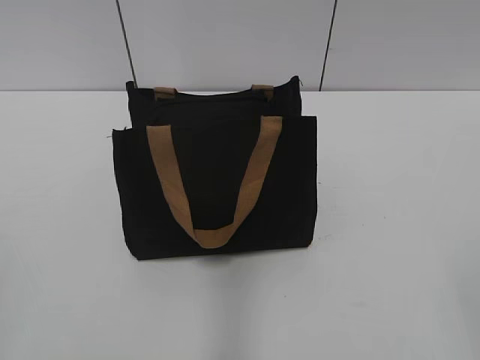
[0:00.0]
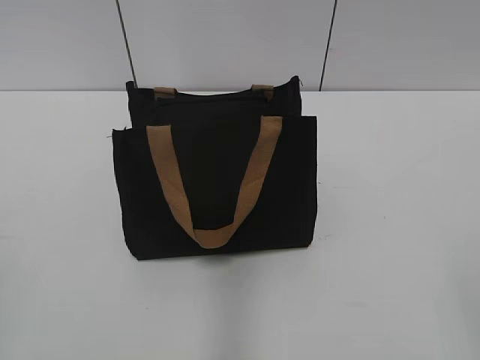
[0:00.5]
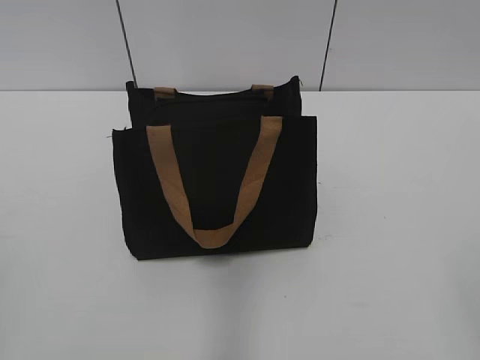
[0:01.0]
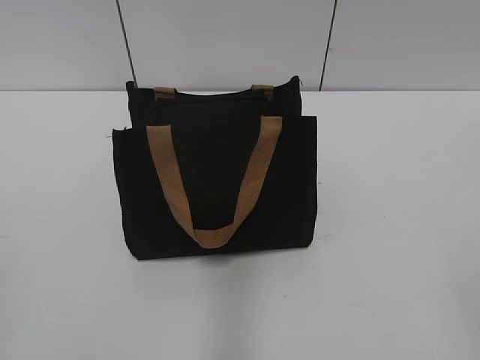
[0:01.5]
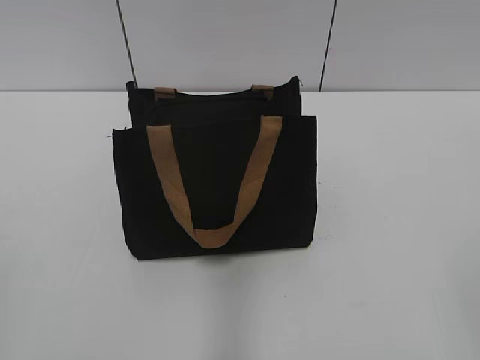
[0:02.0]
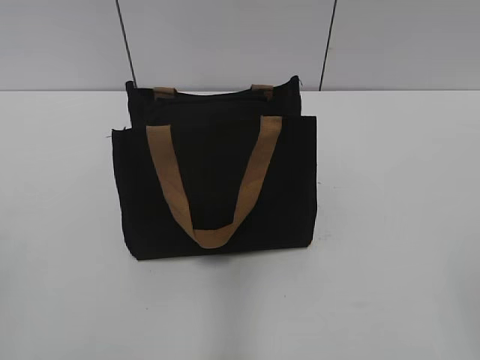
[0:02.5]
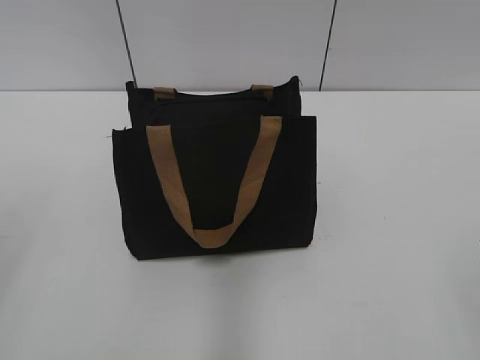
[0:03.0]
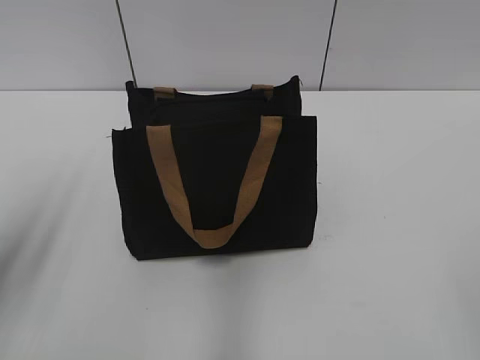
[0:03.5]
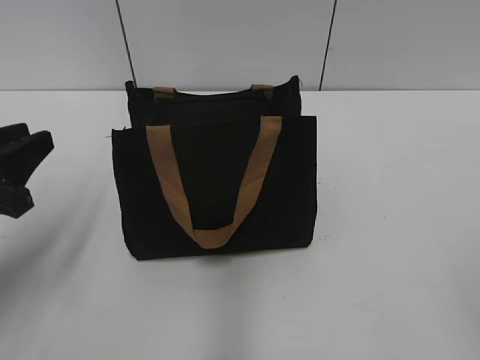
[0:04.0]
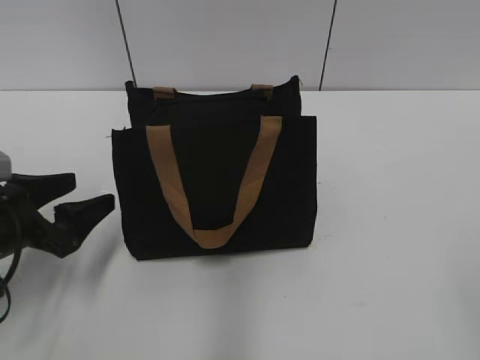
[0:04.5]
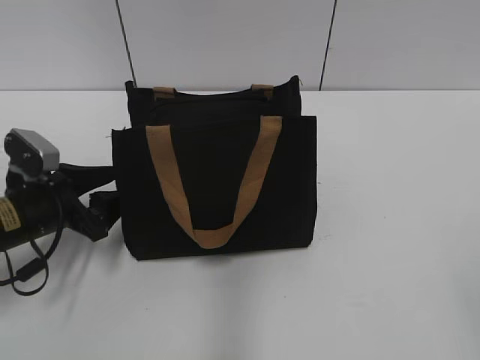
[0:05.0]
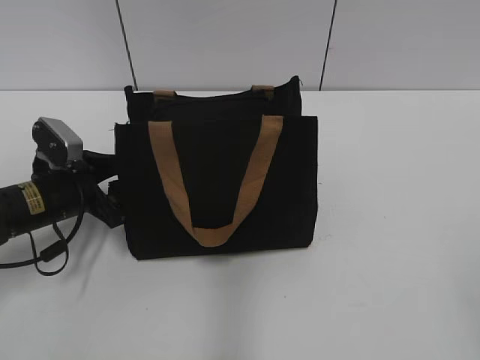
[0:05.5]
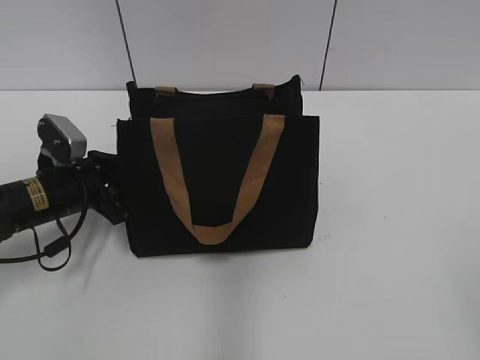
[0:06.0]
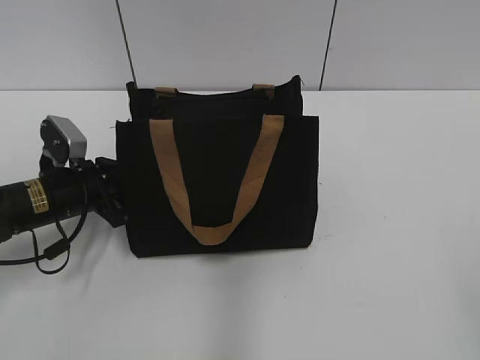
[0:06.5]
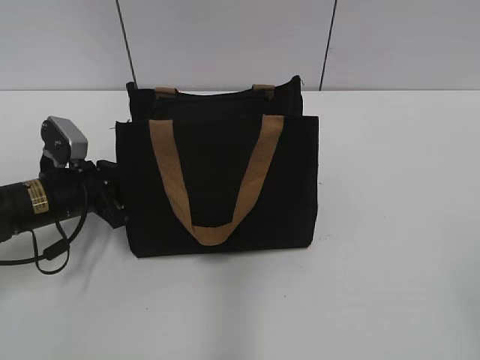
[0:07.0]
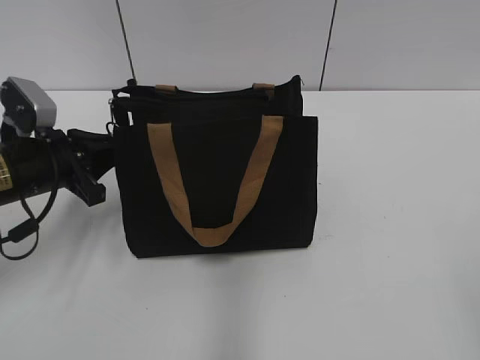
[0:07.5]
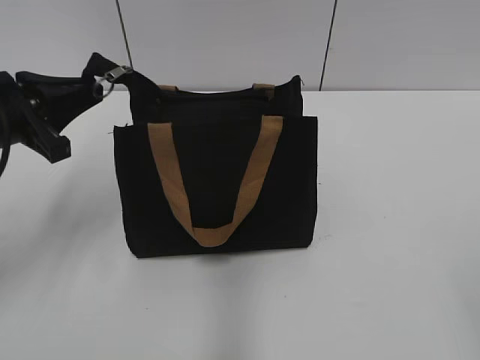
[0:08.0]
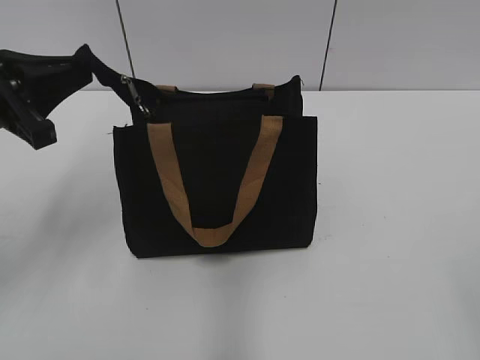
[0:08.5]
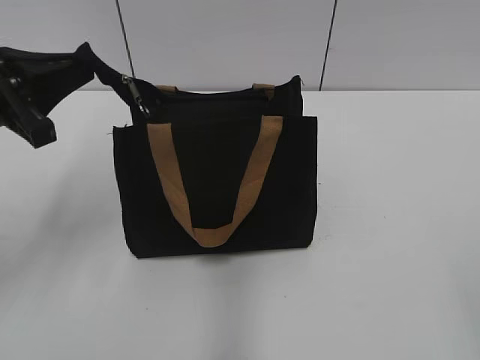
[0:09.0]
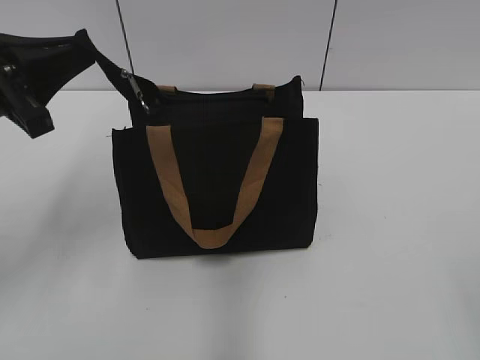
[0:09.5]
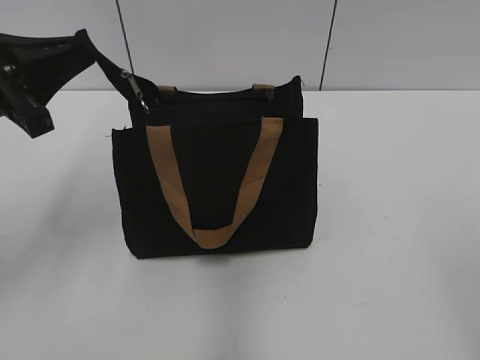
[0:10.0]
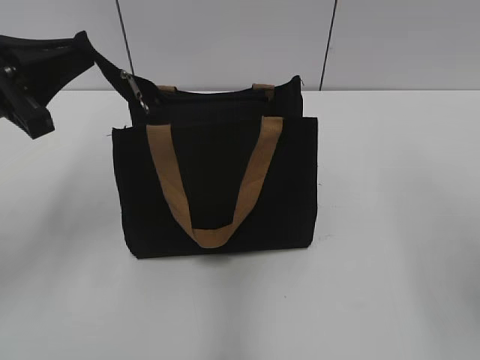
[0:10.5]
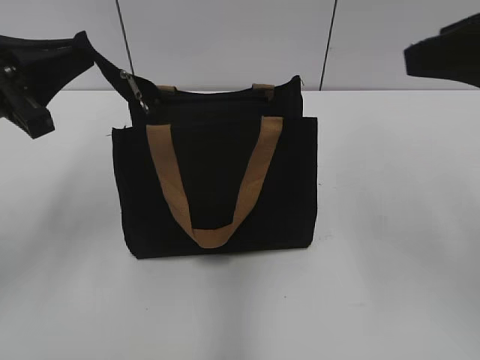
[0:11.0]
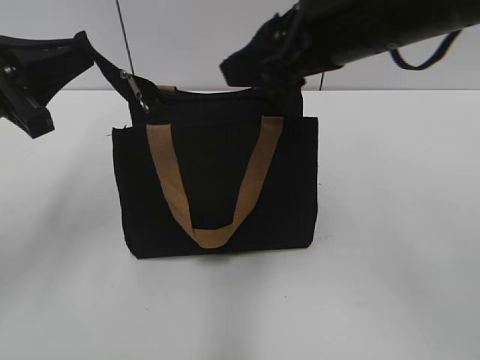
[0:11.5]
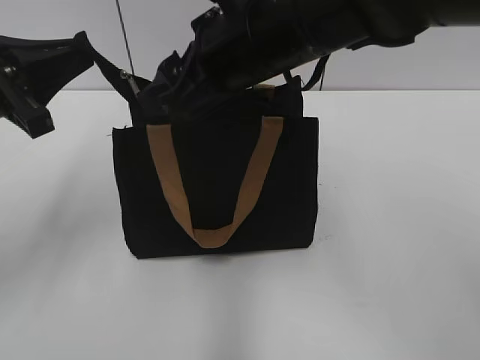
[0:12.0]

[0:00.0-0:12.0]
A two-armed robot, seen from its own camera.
0:02.0 to 0:04.0: The left gripper shifts about 20 cm forward and downward.
0:04.0 to 0:06.0: The left gripper is displaced forward and downward by about 15 cm.
0:06.0 to 0:08.0: The left gripper travels upward by some 15 cm, and closes its fingers.
0:08.0 to 0:10.0: The grippers move only a little.
0:10.0 to 0:12.0: The right gripper travels forward and to the left by some 40 cm.

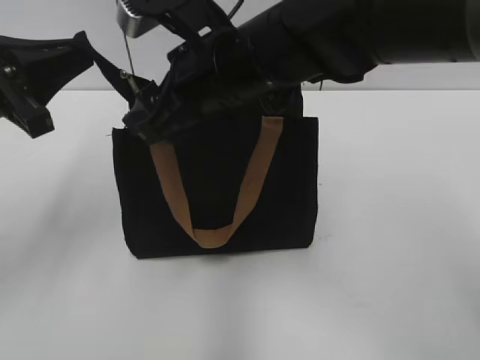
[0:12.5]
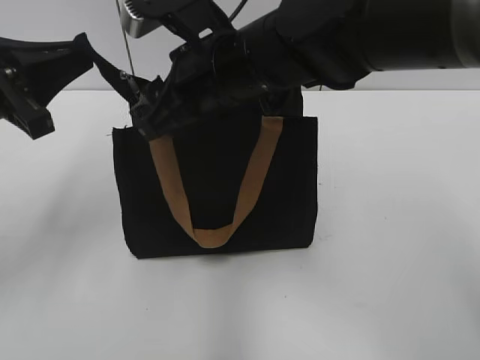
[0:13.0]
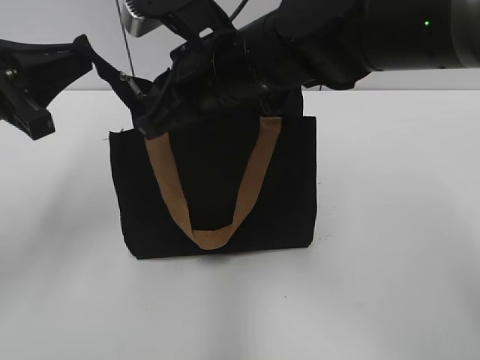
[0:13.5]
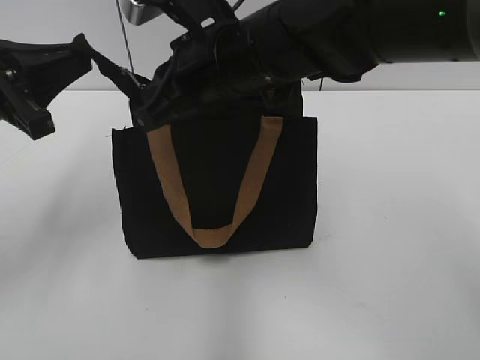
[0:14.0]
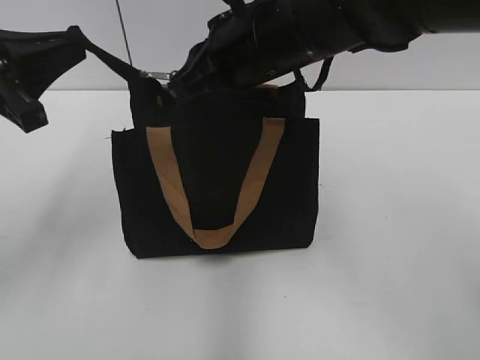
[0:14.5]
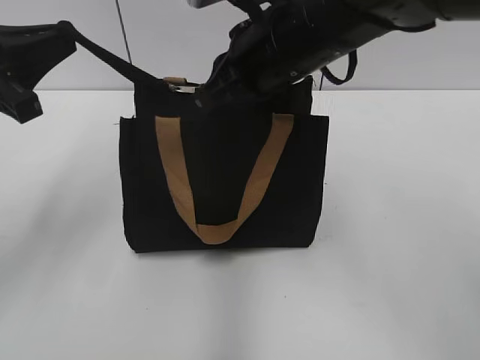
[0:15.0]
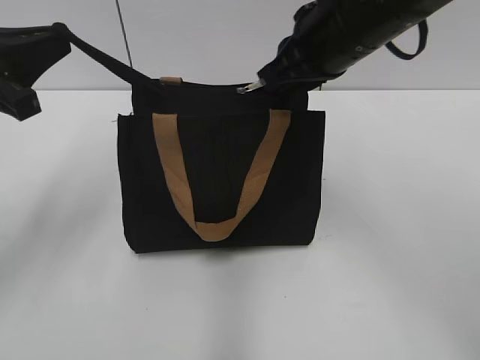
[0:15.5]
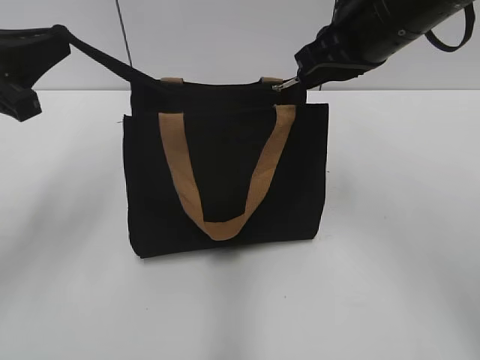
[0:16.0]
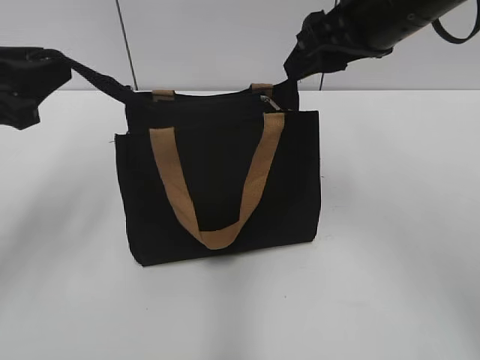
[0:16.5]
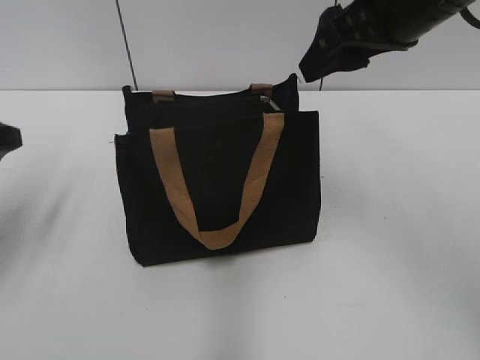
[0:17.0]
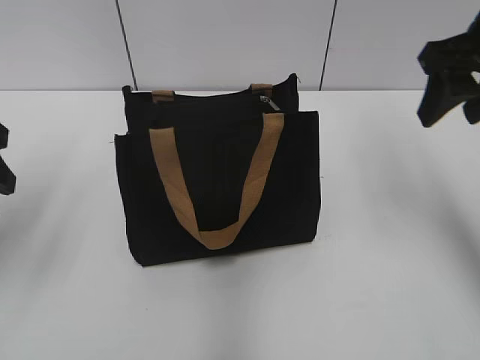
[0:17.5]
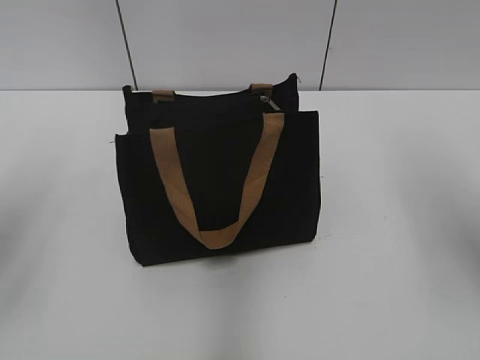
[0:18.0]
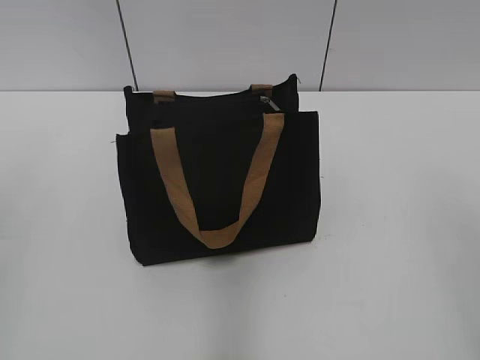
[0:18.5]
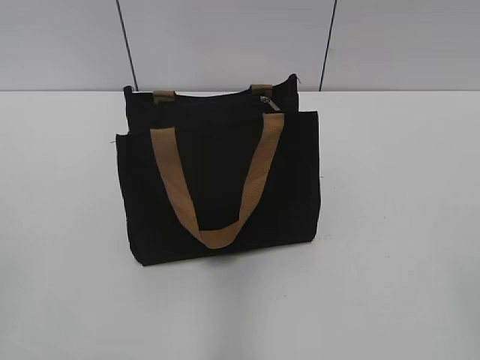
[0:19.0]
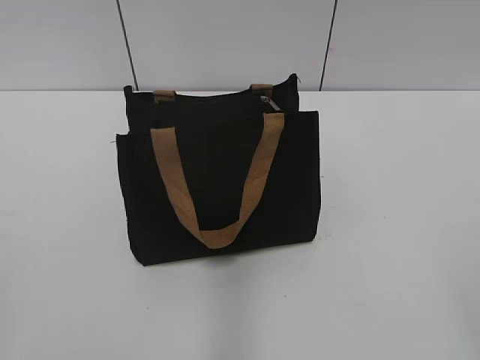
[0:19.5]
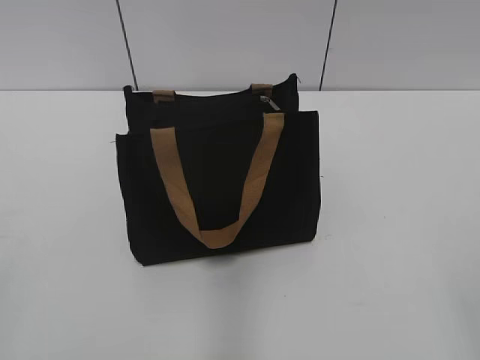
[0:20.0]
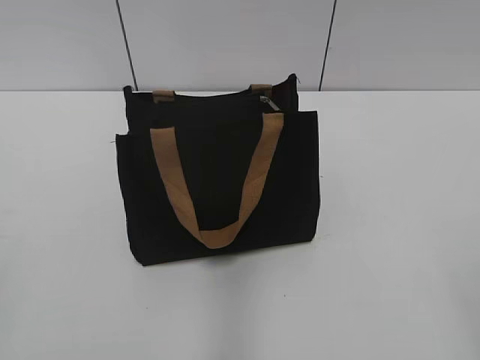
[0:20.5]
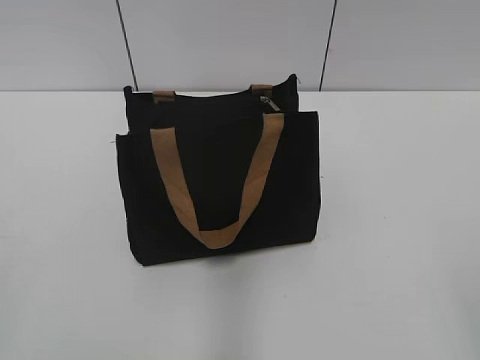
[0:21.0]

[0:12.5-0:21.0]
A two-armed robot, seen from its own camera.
Step, 0:12.5 to 0:16.0: Zip up the bag with your right hand.
0:12.5 to 0:14.5: The right gripper closes its fingers.
0:14.5 to 0:16.5: The right gripper goes roughly 10 cm to the right, and opens.
0:16.5 to 0:19.0: The right gripper shifts about 35 cm backward. Meanwhile the left gripper goes about 20 cm backward.
